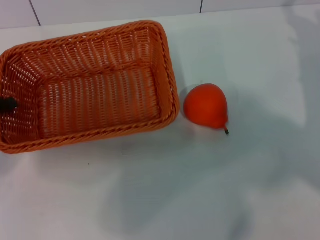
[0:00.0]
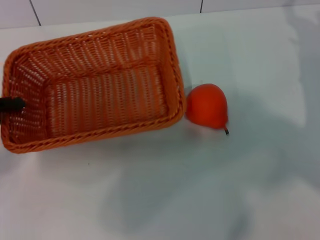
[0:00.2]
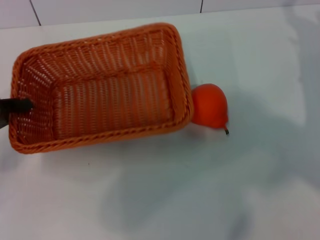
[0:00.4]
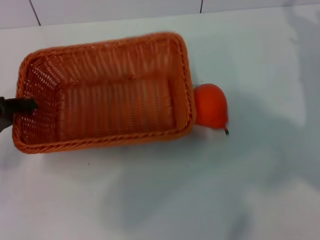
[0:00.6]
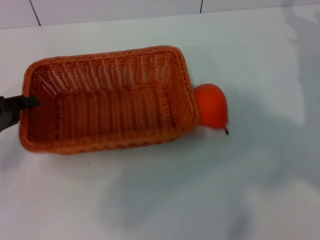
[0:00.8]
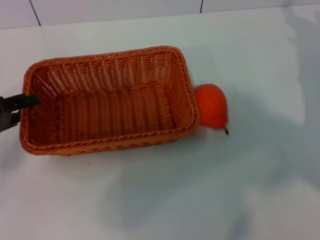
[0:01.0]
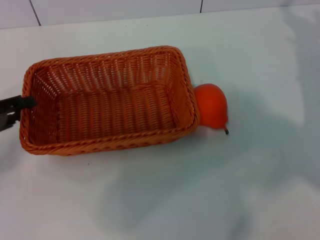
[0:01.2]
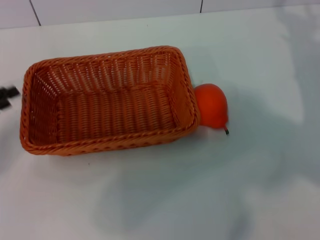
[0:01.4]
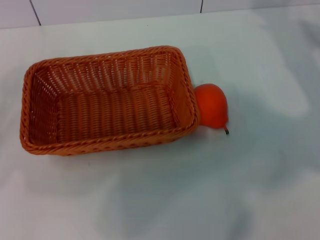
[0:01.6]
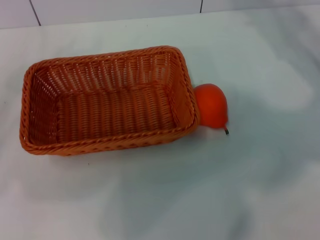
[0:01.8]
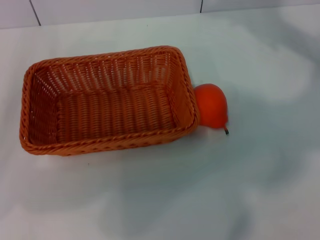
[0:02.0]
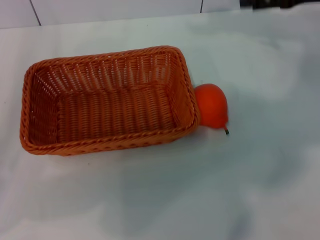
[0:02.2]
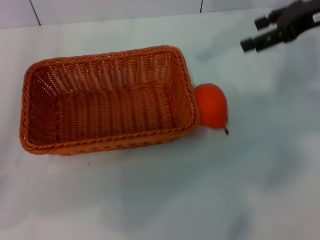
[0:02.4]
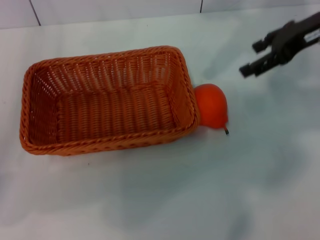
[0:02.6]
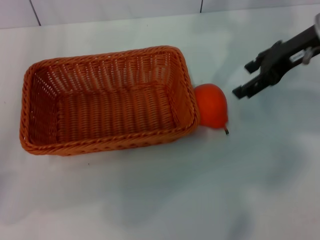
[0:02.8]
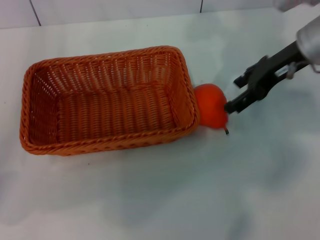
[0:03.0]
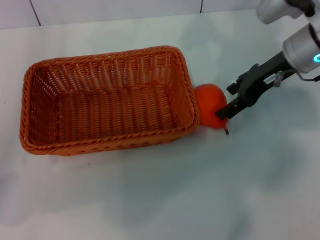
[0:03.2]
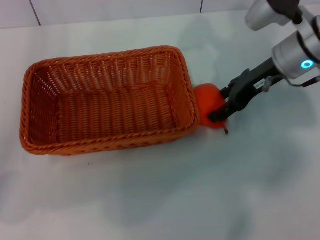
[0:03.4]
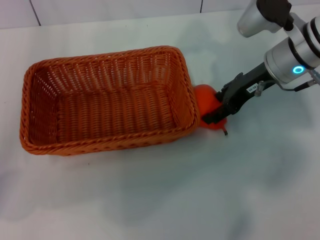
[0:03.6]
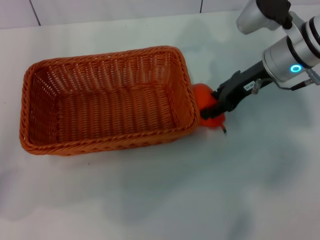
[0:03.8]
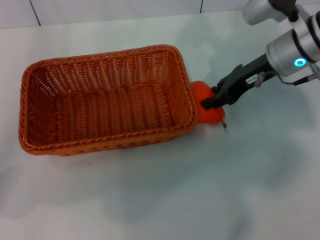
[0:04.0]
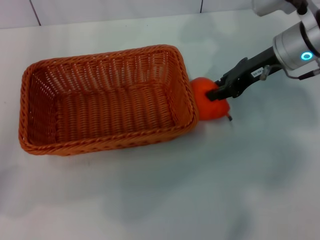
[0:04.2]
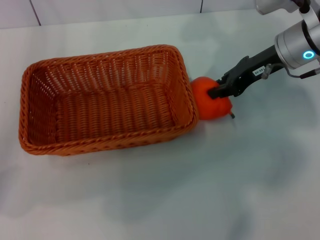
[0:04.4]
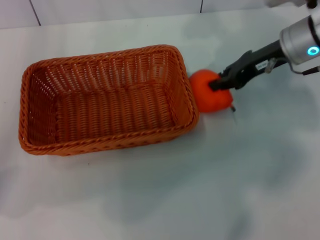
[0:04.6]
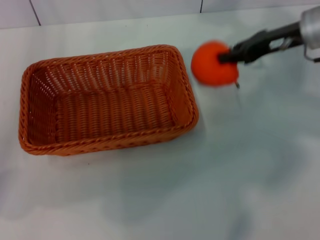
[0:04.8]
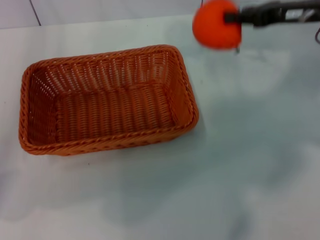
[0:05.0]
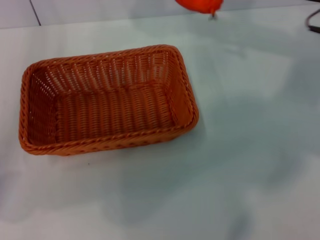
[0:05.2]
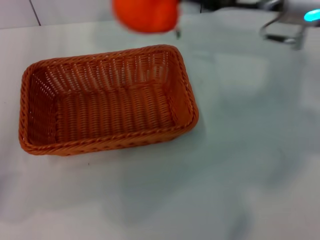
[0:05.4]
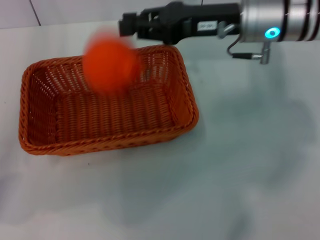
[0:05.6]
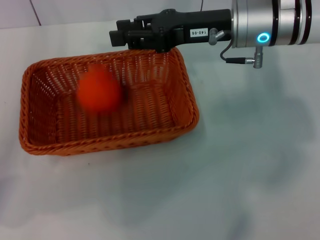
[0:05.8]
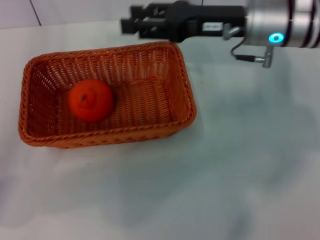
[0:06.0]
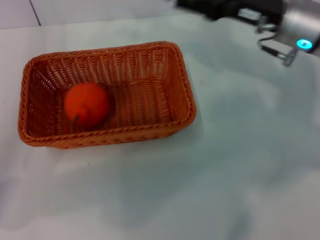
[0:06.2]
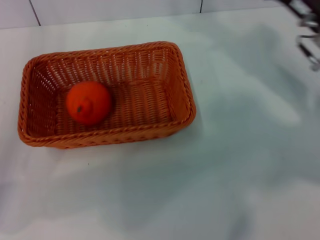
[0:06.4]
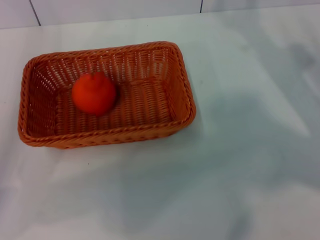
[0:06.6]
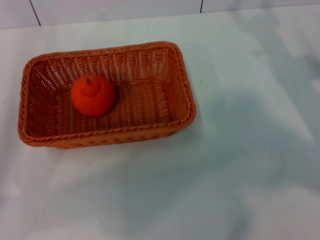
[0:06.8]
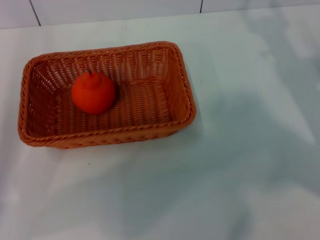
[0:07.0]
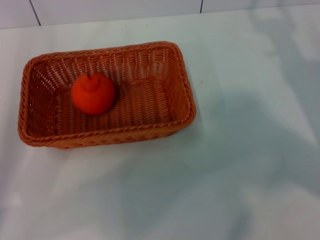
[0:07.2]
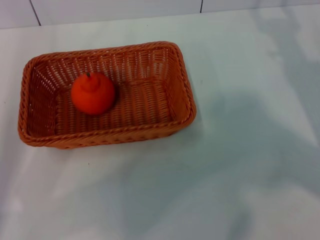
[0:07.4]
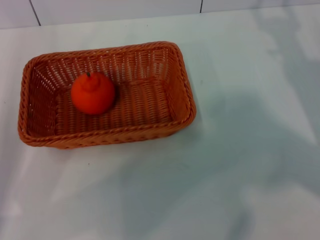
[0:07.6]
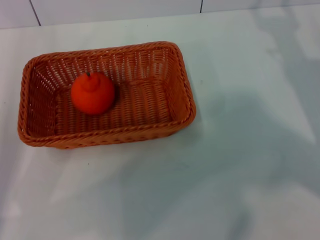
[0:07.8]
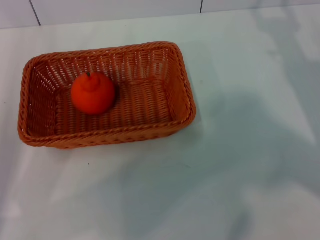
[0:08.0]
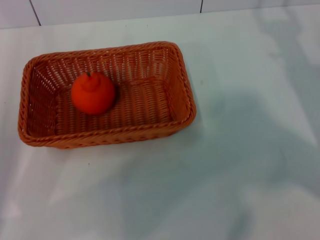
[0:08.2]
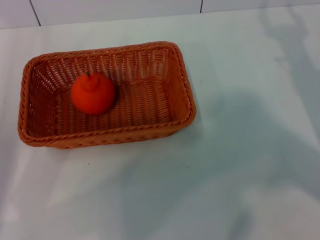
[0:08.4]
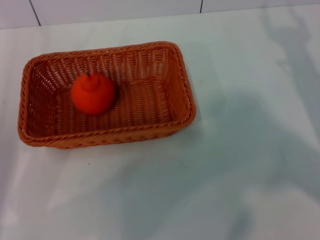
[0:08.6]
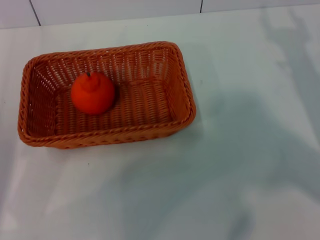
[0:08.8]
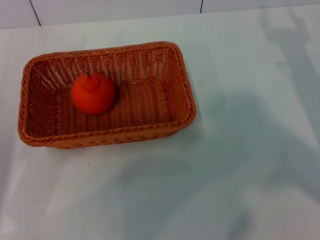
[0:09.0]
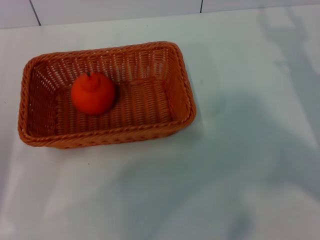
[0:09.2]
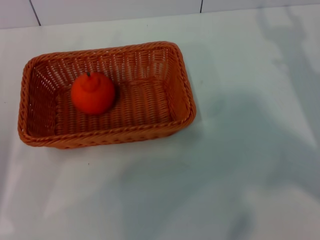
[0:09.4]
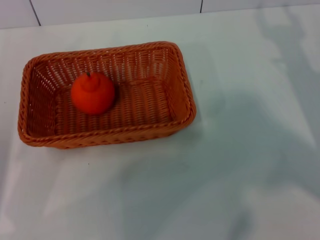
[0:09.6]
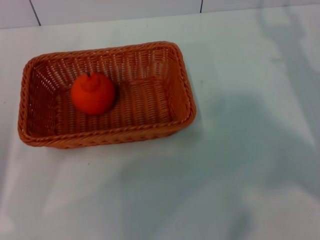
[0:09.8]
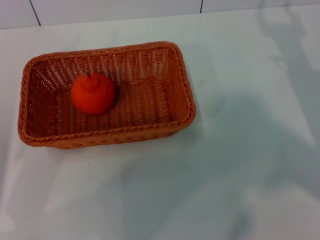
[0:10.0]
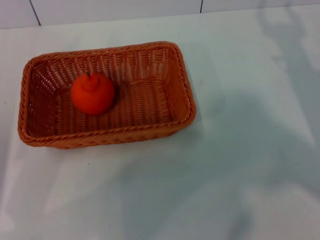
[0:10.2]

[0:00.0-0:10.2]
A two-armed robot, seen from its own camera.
Task of the whole recording: the left gripper pick up the yellow basket and place it horizontally in the middle of the table, the right gripper pick up the orange and place it into the yellow basket.
Step, 0:01.4 to 0:04.6: Pick up the orange with the right gripper.
Step, 0:05.0 to 0:05.8: Place the orange into the light basket with the right gripper.
0:00.0 to 0:01.4: The left gripper opens.
0:01.4 to 0:03.0: The right gripper moves to the left and upward, roughly 15 cm.
0:03.0 to 0:04.4: The right gripper closes its fingers.
0:04.4 to 0:05.8: The right gripper heads to the left, covering some 5 cm.
0:05.8 to 0:07.2: The right gripper is displaced to the right, downward and backward by roughly 20 cm, and opens.
0:08.8 to 0:10.2: The two grippers keep their place.
